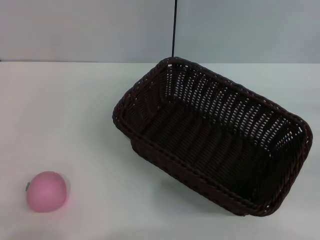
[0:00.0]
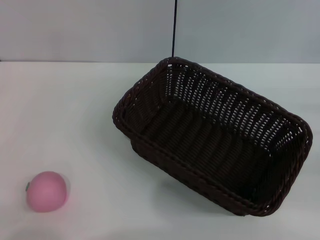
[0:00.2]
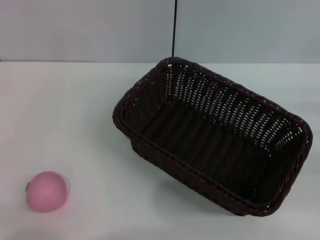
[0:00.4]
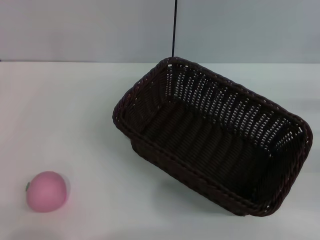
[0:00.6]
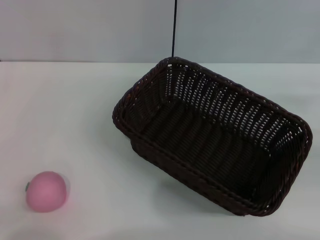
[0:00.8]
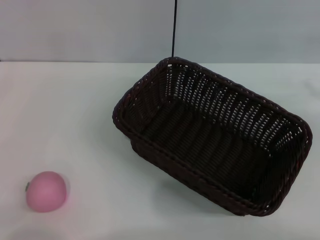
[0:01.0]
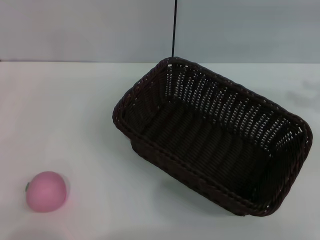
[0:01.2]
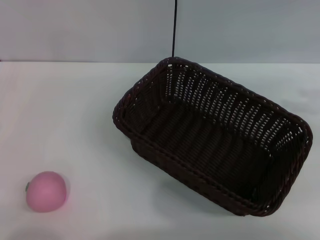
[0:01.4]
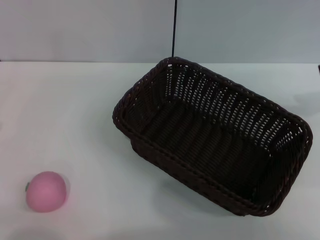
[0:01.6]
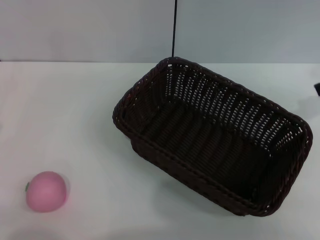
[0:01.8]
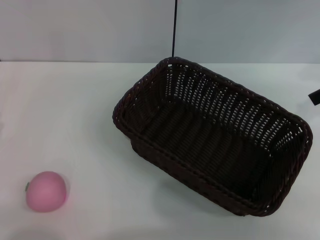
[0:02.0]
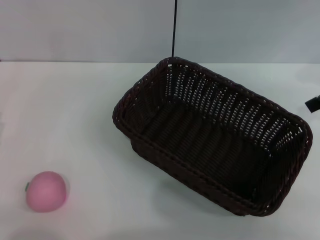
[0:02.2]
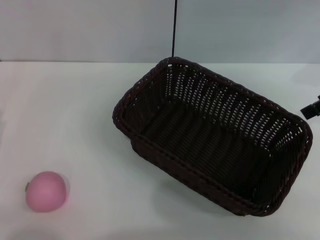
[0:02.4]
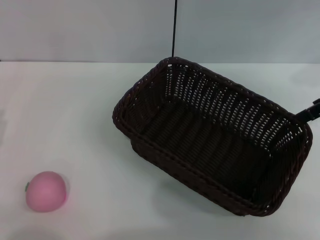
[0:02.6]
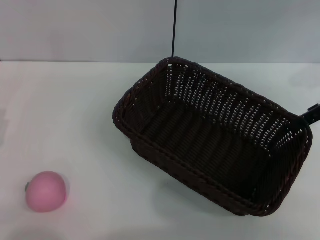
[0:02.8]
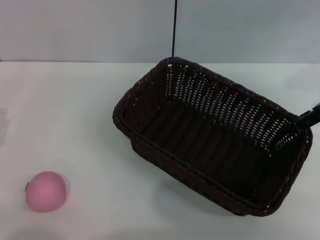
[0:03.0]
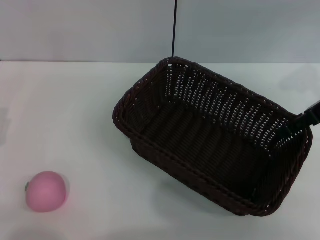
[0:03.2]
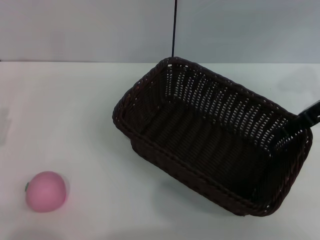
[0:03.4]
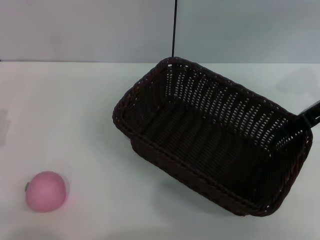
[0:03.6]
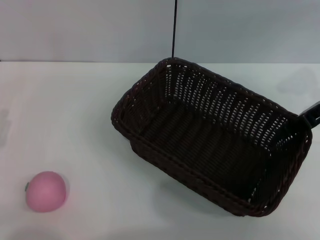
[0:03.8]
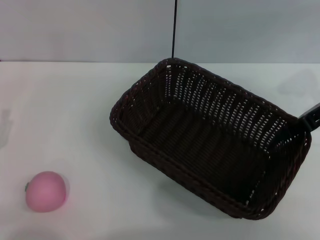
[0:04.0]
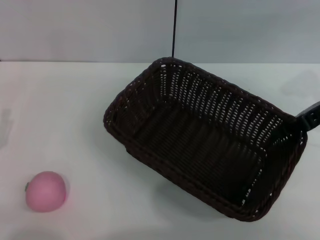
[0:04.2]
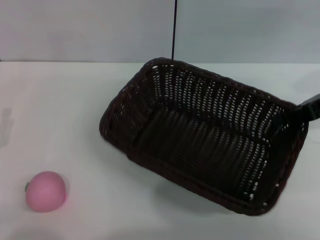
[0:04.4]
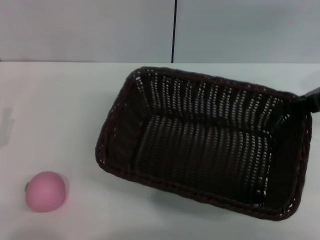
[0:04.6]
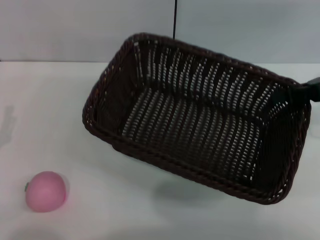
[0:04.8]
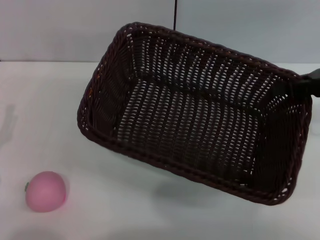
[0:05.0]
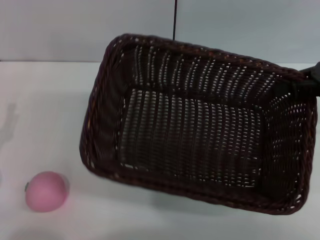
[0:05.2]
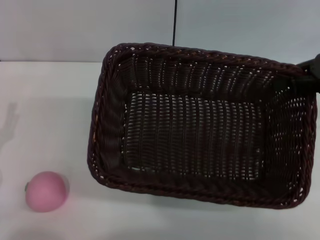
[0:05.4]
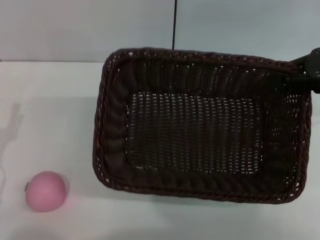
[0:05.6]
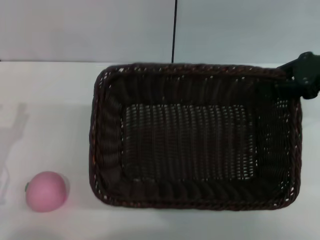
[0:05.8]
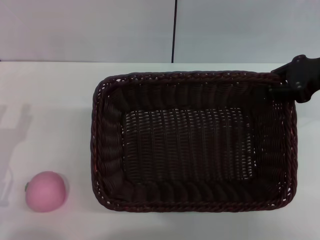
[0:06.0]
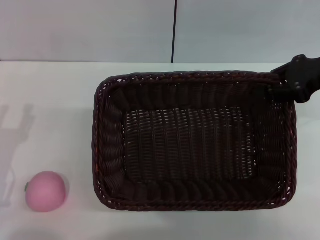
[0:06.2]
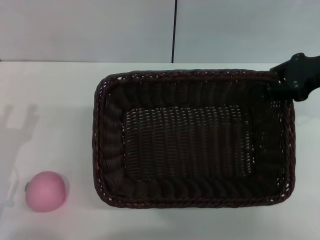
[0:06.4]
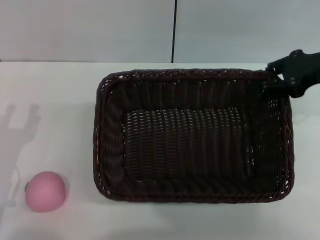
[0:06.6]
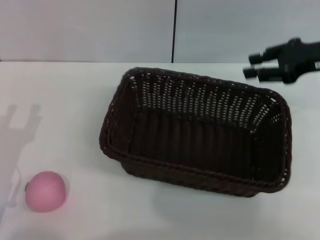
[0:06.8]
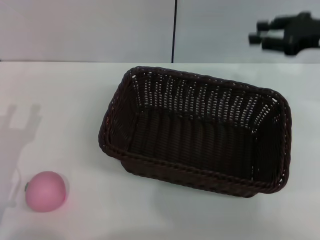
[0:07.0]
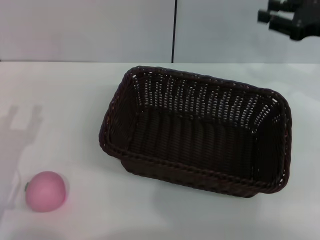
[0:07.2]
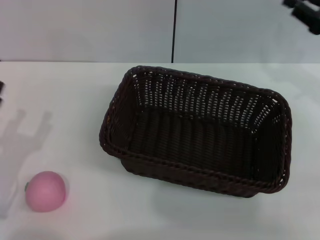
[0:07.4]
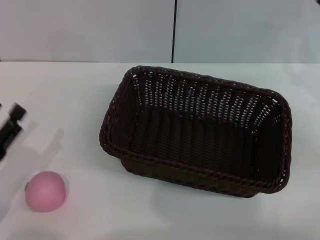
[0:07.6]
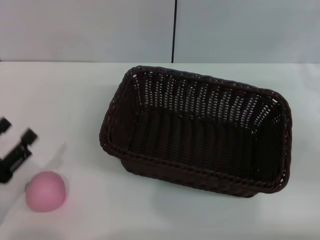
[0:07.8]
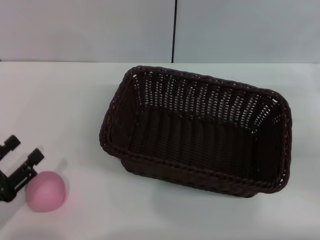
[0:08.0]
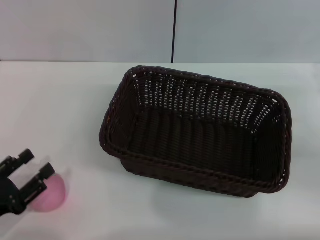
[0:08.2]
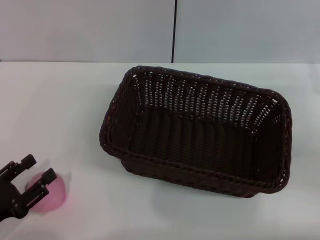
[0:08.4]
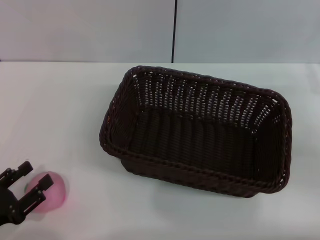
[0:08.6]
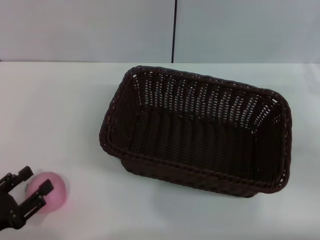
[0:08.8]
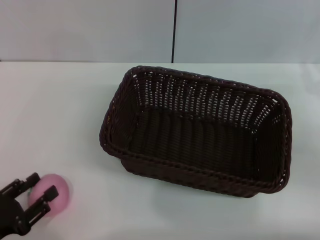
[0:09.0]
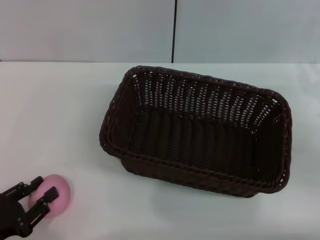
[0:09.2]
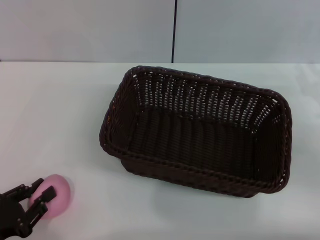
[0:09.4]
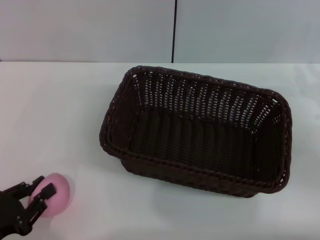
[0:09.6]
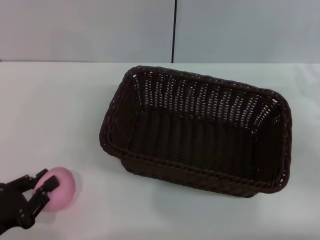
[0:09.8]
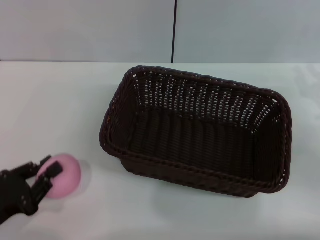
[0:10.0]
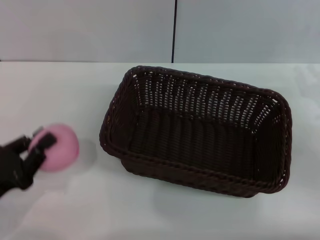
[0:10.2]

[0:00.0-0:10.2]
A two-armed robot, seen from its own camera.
Step, 0:00.0 to 0:04.8: Pick up the dark basket with the right gripper.
Step, 0:05.0 to 0:06.8: Place the dark basket in the center of view with the right gripper.
Step, 0:07.0 to 0:10.2: Pick up the peach with the left gripper.
0:00.0 to 0:01.4: The right gripper travels upward by roughly 20 cm.
0:03.0 to 0:04.4: The right gripper closes up.
0:07.2 to 0:08.8: The left gripper moves backward, about 5 cm. The right gripper is displaced downward and backward by some 10 cm.
0:08.8 to 0:10.2: The left gripper ends up roughly 5 cm from where it was, and closes.

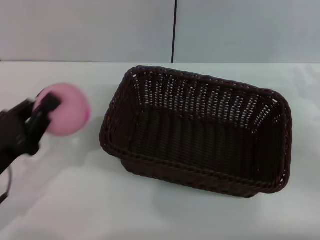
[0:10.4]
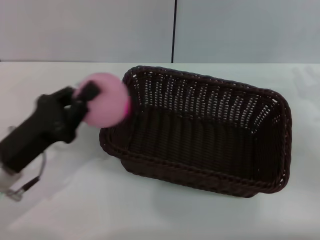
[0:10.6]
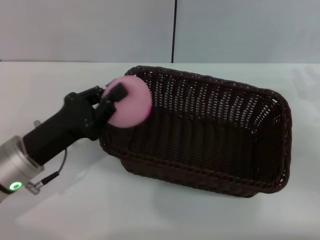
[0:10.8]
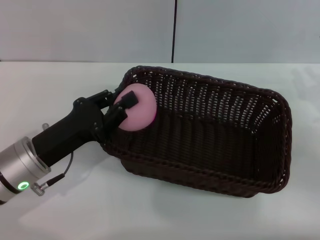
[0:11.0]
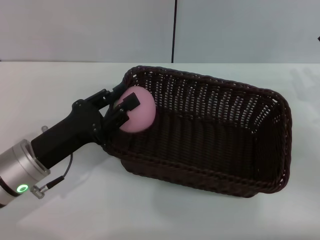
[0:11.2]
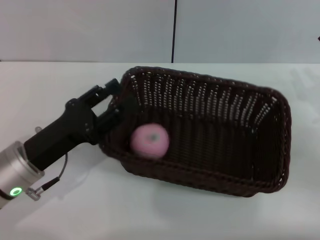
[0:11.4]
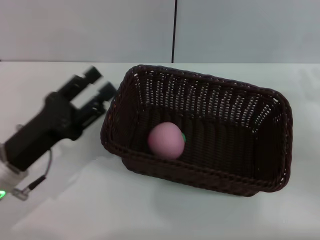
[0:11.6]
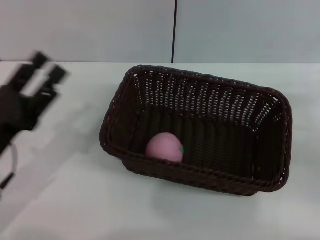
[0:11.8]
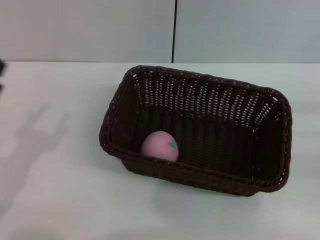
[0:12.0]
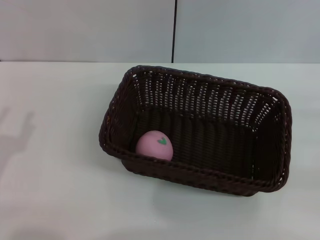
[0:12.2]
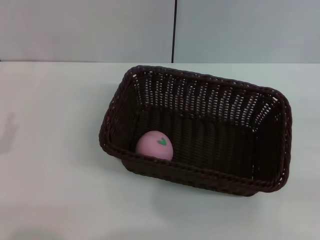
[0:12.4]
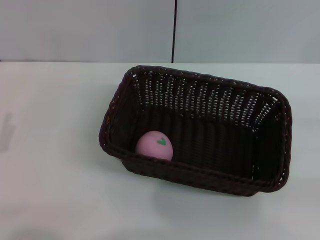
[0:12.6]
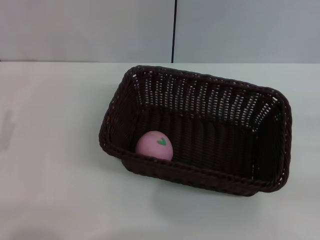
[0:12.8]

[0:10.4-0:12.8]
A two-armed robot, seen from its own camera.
Step, 0:10.4 to 0:11.6: Place the peach into the basket with the left gripper.
0:10.4 to 0:11.6: The left gripper shifts by some 5 cm, and opens its fingers.
0:11.6 to 0:12.8: The right gripper shifts about 10 cm to the right and backward; the left gripper travels to the left and backward by about 10 cm.

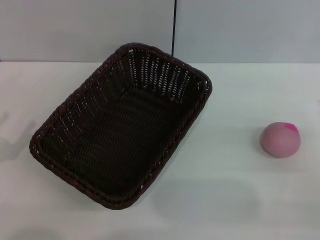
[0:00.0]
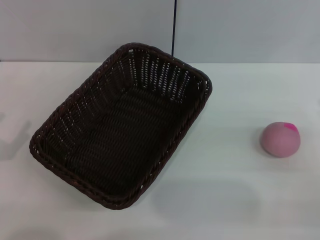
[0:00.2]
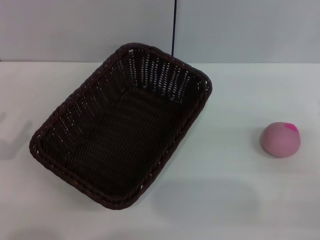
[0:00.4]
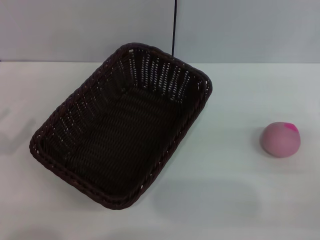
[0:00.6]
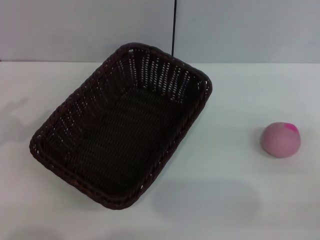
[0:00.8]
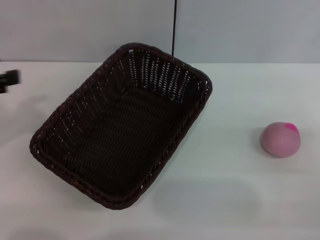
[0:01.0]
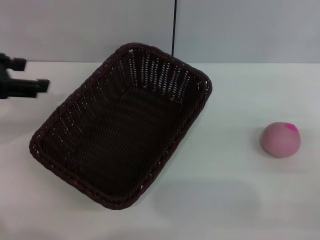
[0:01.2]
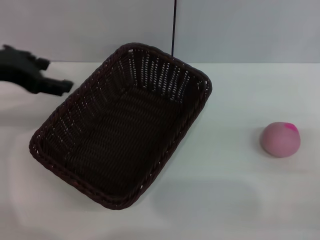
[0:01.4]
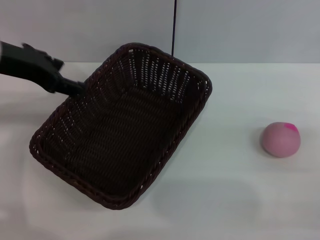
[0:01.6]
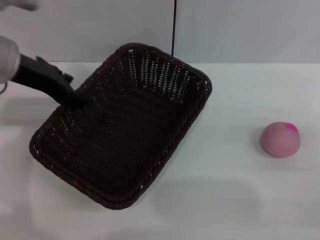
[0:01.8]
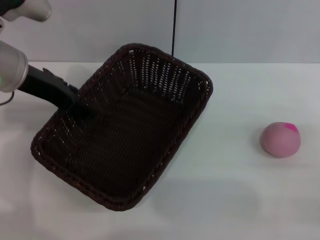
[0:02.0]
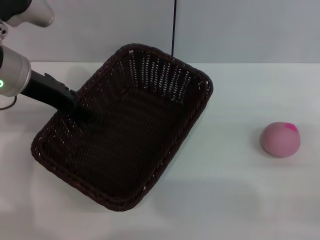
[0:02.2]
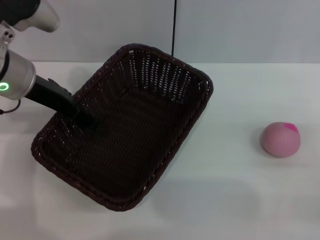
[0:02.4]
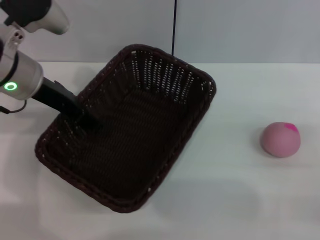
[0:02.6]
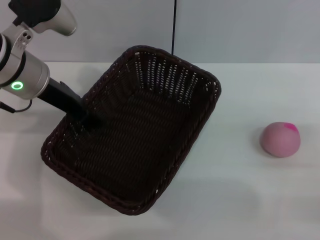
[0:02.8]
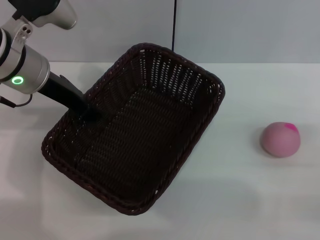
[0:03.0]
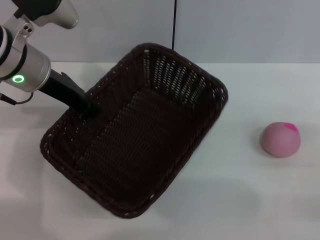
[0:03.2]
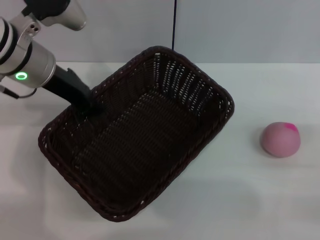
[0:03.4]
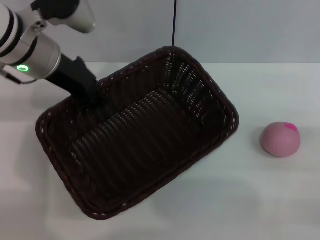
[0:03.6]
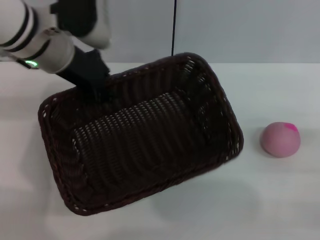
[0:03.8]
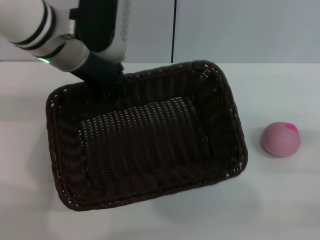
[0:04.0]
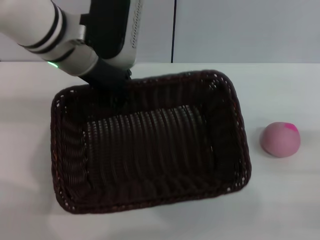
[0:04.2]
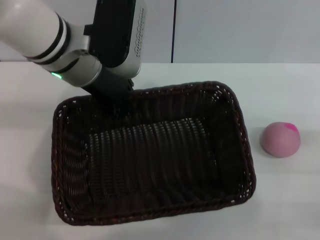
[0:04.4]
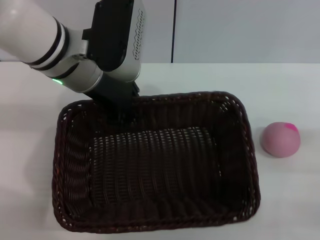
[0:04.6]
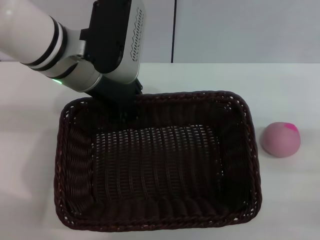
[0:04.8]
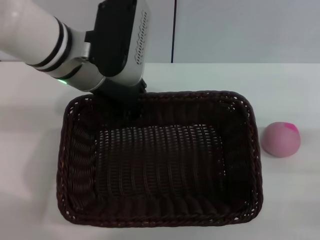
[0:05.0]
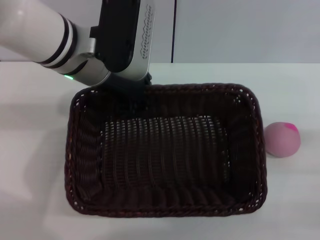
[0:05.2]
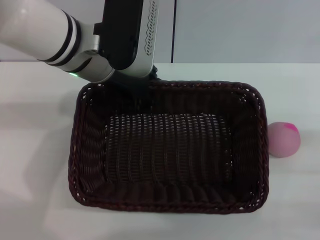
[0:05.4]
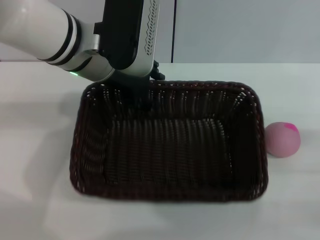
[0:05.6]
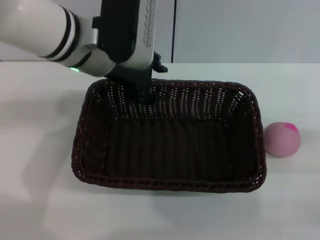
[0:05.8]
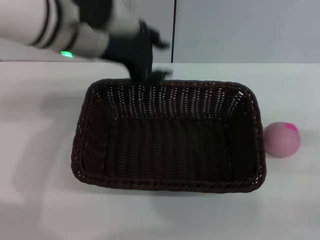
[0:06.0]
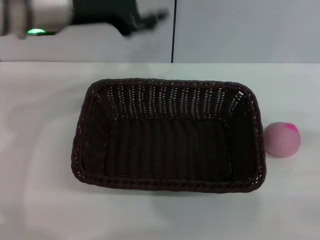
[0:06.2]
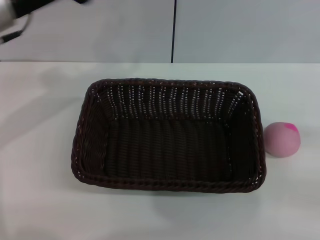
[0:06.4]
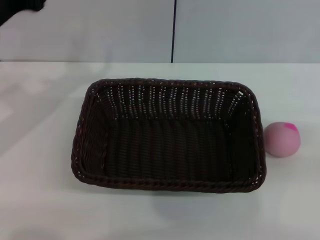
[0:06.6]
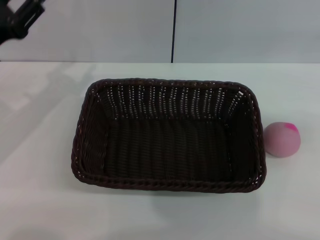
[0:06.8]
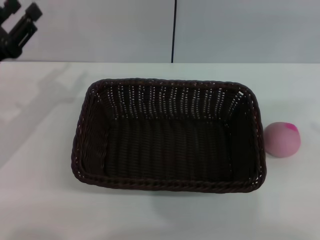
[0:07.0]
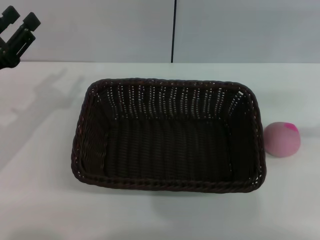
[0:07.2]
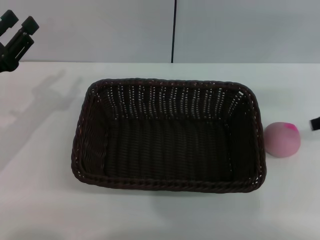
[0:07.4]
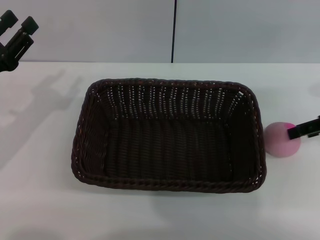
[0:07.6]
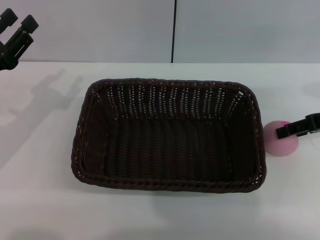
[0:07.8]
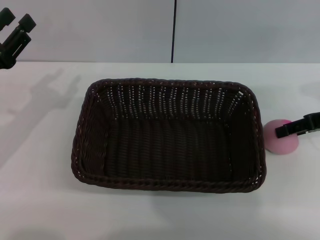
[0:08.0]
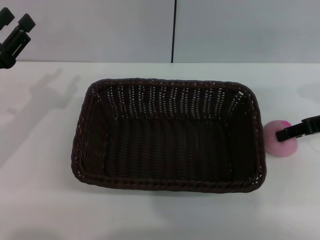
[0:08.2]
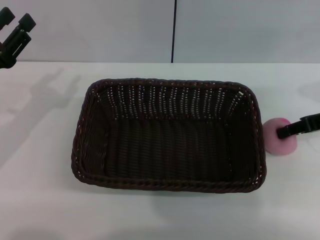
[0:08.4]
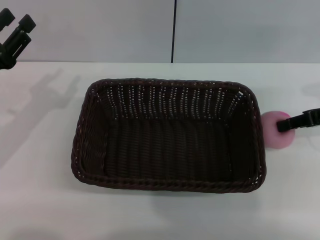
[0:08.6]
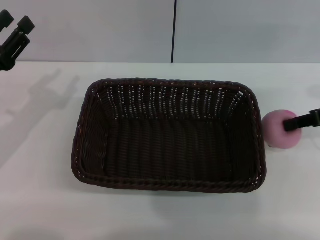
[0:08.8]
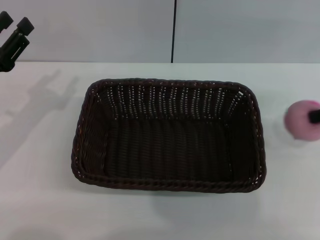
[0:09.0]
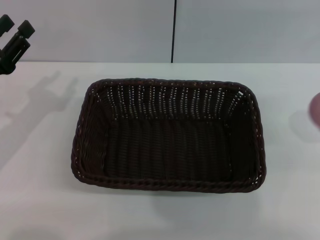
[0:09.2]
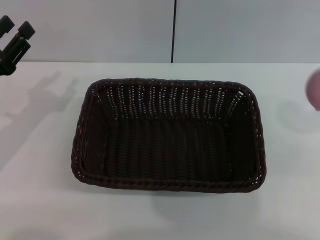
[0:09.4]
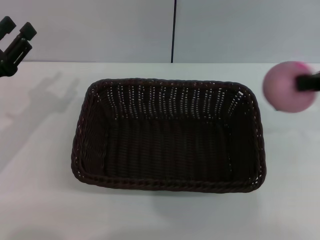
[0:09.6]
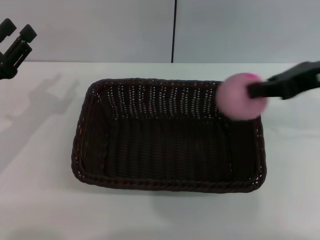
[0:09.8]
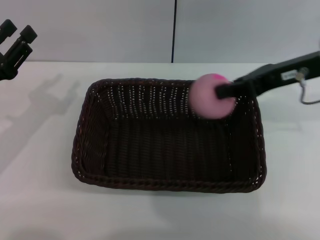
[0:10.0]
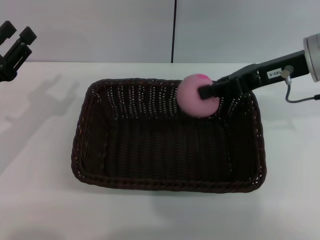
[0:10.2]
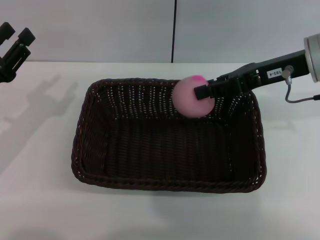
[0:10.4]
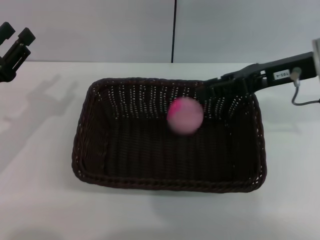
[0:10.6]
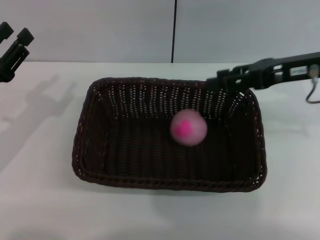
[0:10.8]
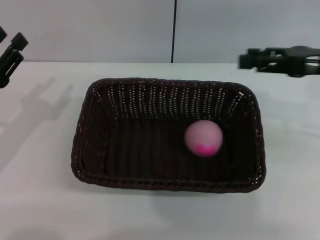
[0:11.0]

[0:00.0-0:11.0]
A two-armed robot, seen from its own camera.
Step, 0:00.0 to 0:02.8: Pick up the dark basket with the left gripper.
Step, 0:03.0 to 0:05.8: Place the dark basket in the center of view with the right gripper.
Step, 0:06.0 to 0:08.8: Pick up the peach with the left gripper.
0:00.0 to 0:01.6: The left gripper moves forward, upward and to the right, some 25 cm.
0:01.6 to 0:03.2: The left gripper changes place by some 5 cm, and closes its fingers.
0:03.2 to 0:04.8: The left gripper is displaced to the right by some 5 cm.
0:04.8 to 0:06.2: The left gripper shifts by roughly 5 cm, and opens its fingers.
0:06.2 to 0:07.8: The right gripper is displaced forward, to the left and upward by about 20 cm, while the left gripper is displaced to the left, downward and backward by roughly 20 cm.
0:07.8 to 0:09.4: The right gripper moves upward and backward, roughly 15 cm, and closes its fingers.
0:09.4 to 0:11.0: The right gripper goes approximately 10 cm downward, goes to the left and returns, approximately 10 cm each way, and opens up.
